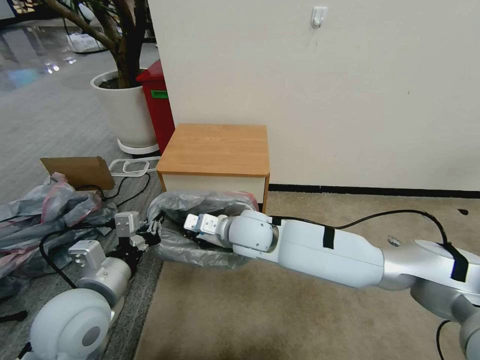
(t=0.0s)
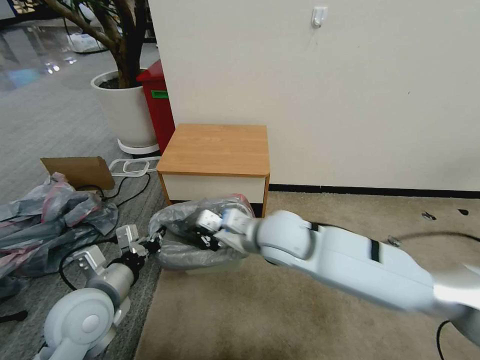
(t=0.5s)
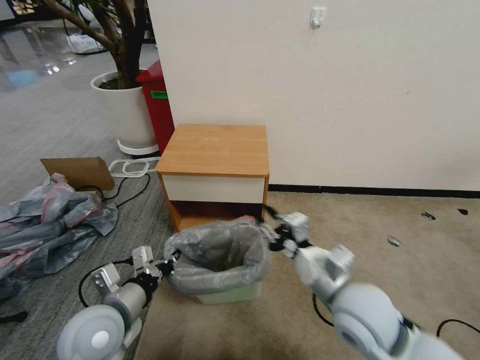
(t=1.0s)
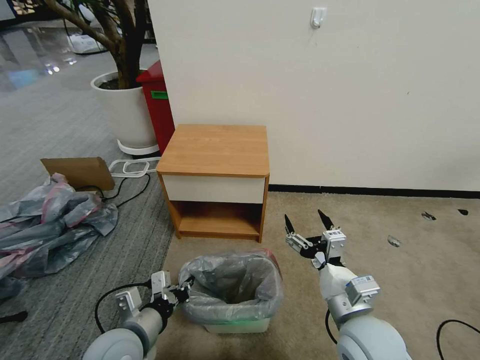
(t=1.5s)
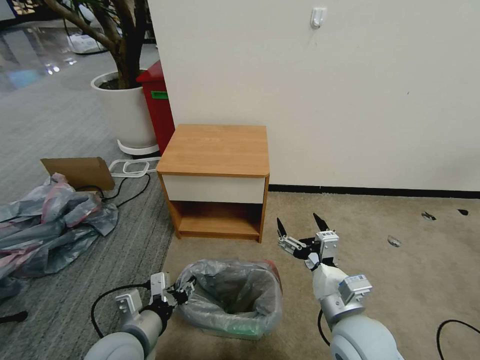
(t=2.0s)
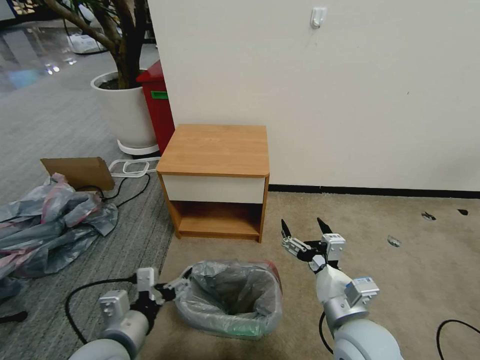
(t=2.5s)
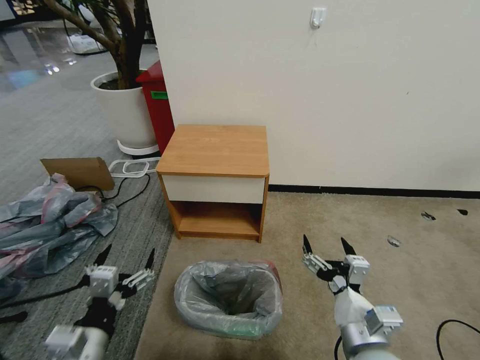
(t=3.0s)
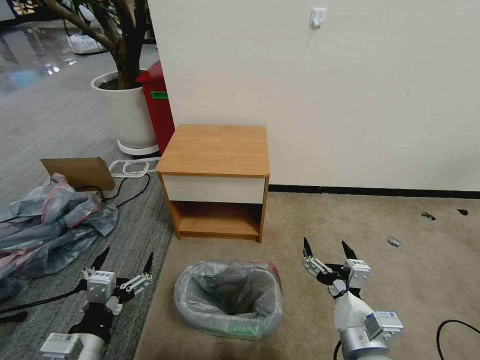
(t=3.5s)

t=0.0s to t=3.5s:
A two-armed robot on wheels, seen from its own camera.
Task of the whole recording: Pick up the garbage bag from the table and place it over the trash can.
t=0.0s to t=2.0s: The left gripper shifts roughly 10 cm downward, while the right gripper shifts roughly 25 cm backward and to the right, and opens up.
t=2.0s to t=3.5s: The grippers both shift backward by some 5 cm. The left gripper opens.
